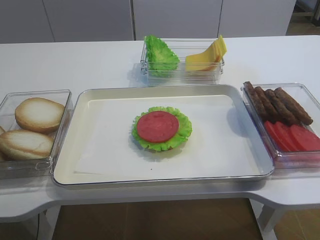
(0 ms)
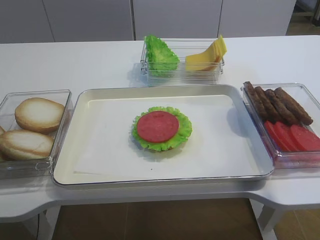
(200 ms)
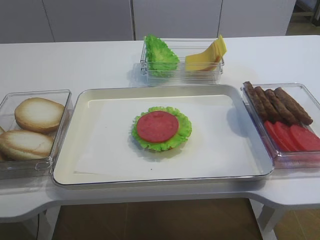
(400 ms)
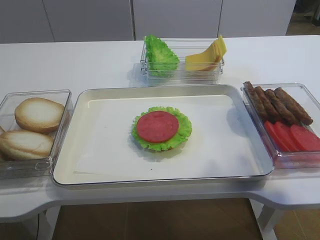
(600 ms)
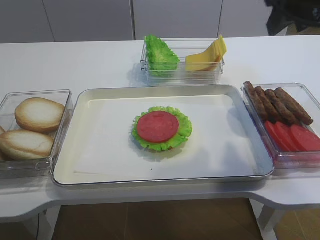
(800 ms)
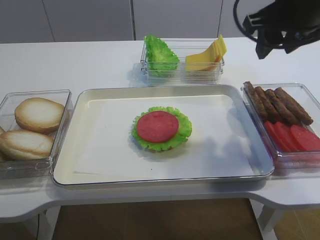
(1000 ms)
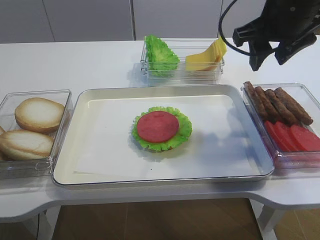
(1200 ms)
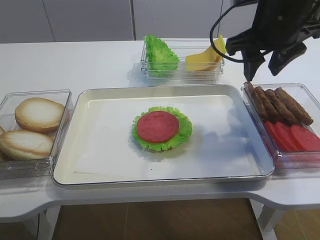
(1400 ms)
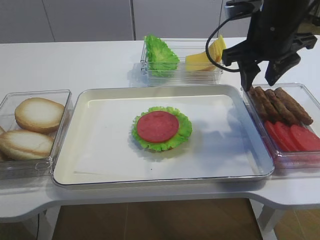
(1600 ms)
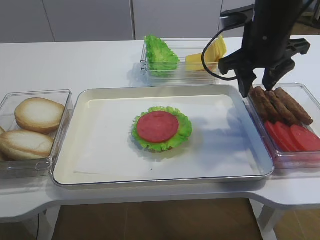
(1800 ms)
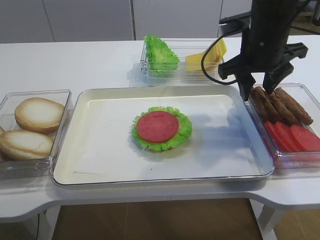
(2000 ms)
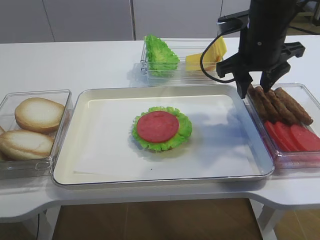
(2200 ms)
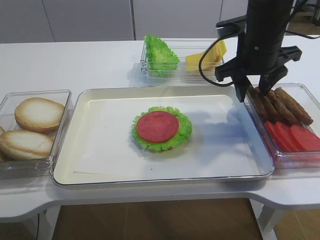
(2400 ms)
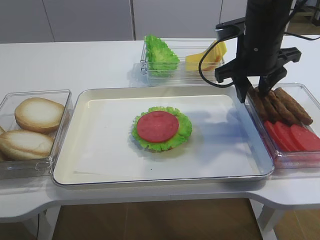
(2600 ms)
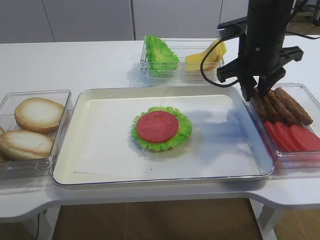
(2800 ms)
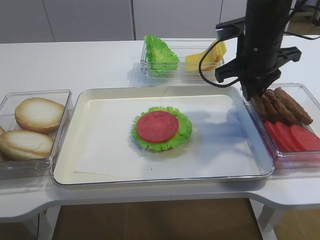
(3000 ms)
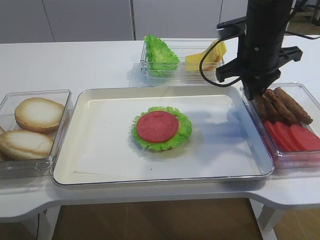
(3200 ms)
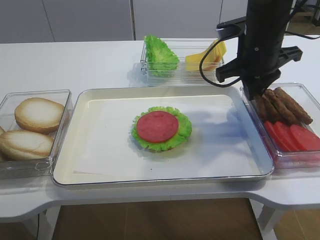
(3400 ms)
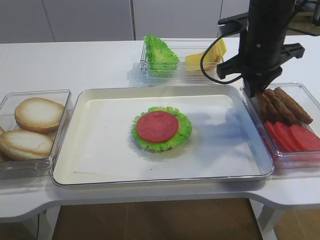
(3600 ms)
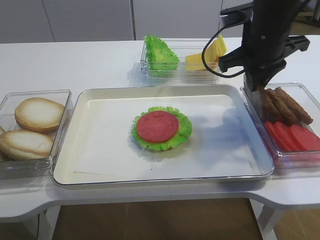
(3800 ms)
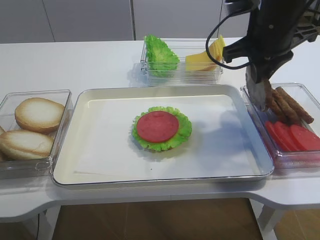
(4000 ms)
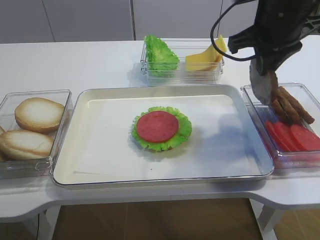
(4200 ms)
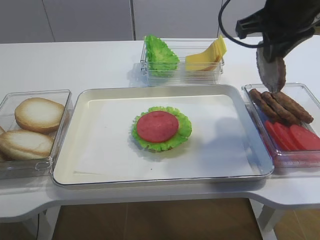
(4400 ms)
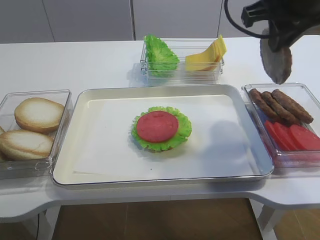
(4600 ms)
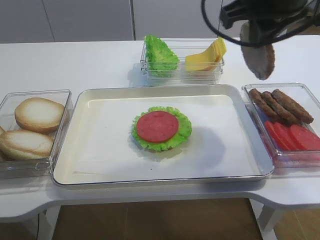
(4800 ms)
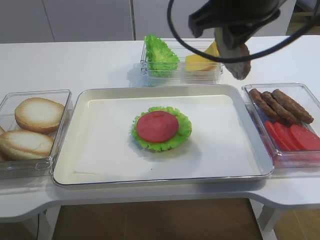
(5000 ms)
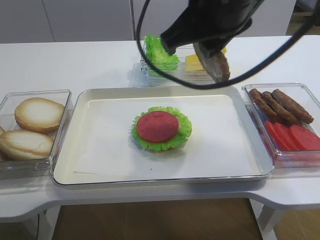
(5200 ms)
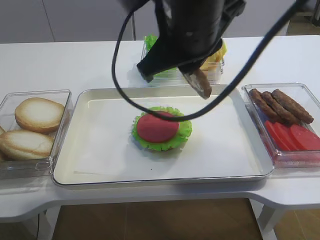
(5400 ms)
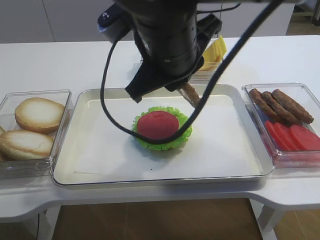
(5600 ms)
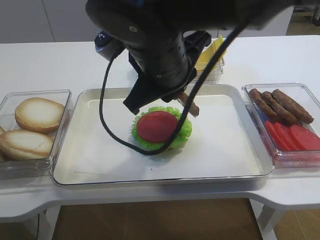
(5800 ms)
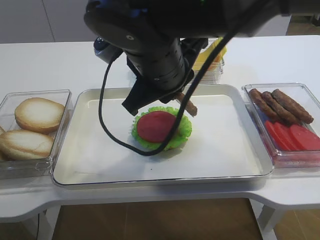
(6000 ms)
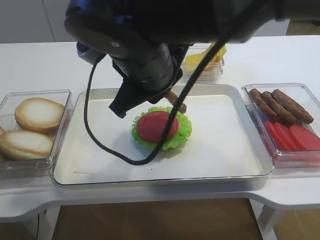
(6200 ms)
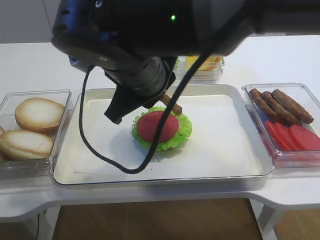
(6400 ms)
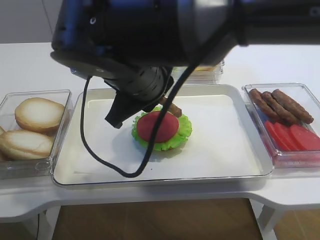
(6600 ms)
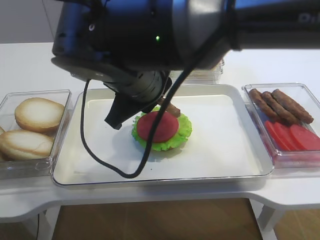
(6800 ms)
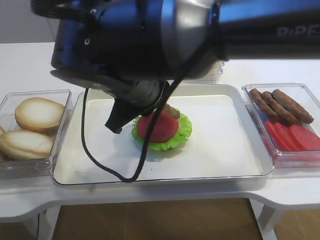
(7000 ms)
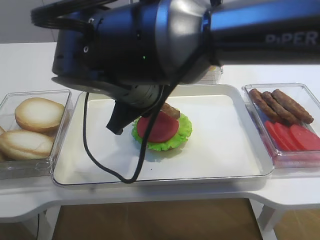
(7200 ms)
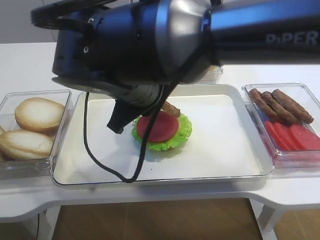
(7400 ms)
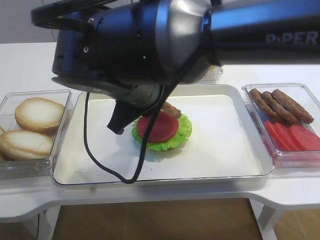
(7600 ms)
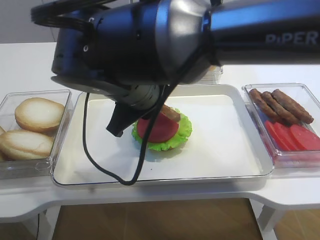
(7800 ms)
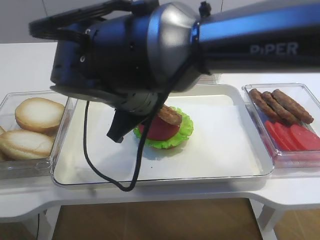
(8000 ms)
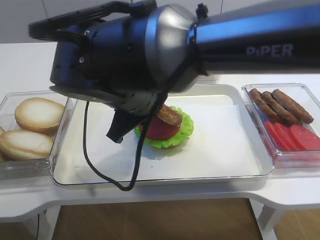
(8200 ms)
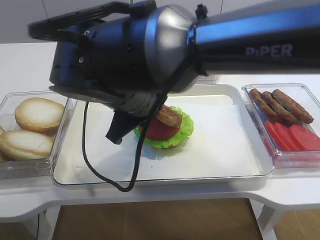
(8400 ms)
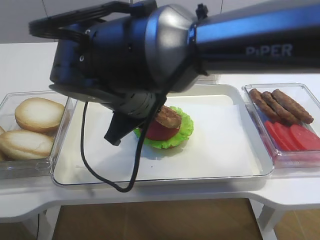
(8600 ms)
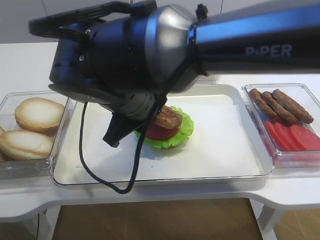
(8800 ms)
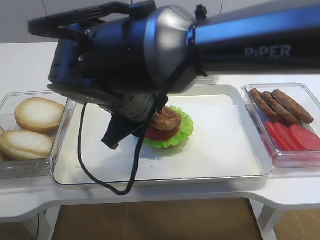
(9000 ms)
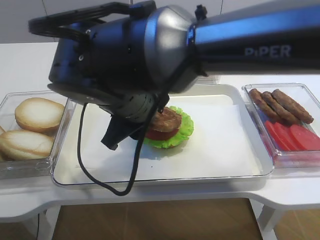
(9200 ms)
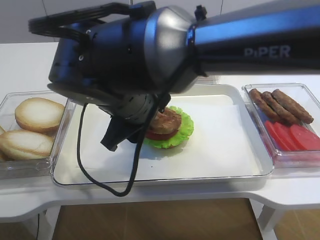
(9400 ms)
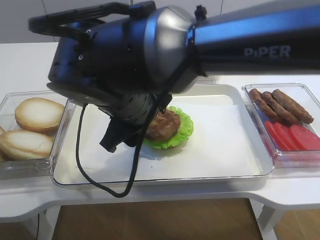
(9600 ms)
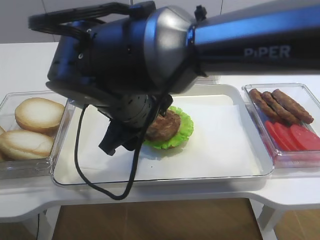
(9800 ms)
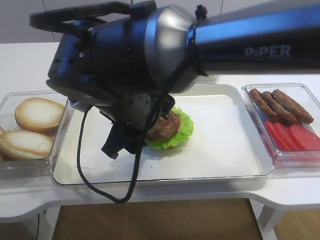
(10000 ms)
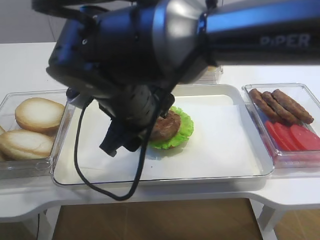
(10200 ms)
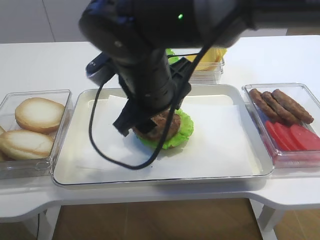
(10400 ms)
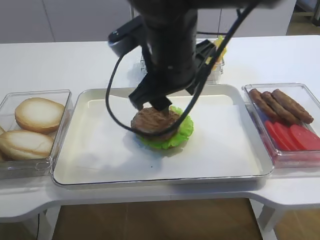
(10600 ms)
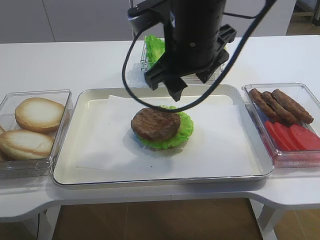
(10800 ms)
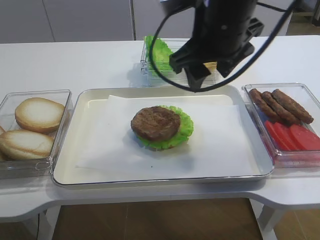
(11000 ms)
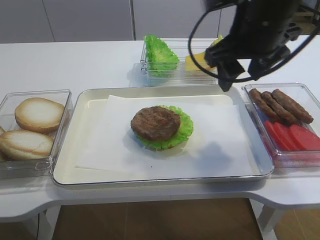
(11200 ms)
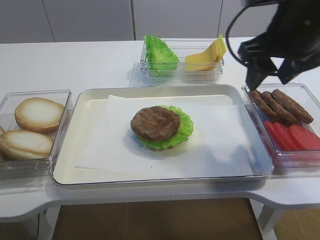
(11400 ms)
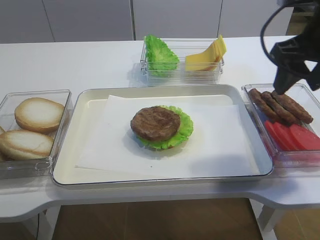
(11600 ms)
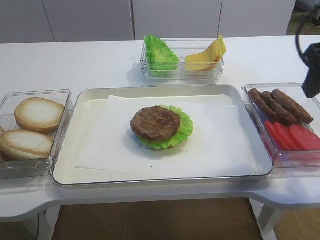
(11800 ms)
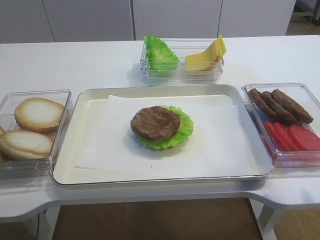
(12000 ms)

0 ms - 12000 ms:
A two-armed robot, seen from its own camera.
Step, 0 ms - 4400 ms: Pick up the cutlet with the right gripper.
Step, 4800 ms - 10600 ms: Place the cutlet on the tomato slice with the right gripper.
0 ms - 1600 ms: The right gripper heads forward, to the left and downward, covering about 20 cm.
1600 ms - 3000 ms: The right gripper closes its fingers.
3000 ms - 4400 ms: The right gripper travels upward by roughly 10 cm.
4400 ms - 6000 ms: The right gripper heads to the left, covering about 15 cm.
7600 ms - 9000 ms: The right gripper opens its fingers.
9000 ms - 10400 ms: The right gripper opens its fingers.
10400 ms - 12000 ms: The right gripper is displaced to the right by approximately 25 cm.

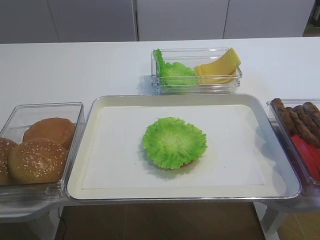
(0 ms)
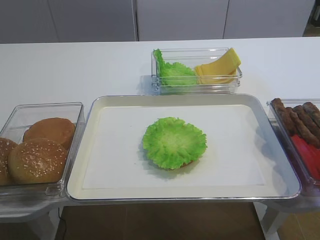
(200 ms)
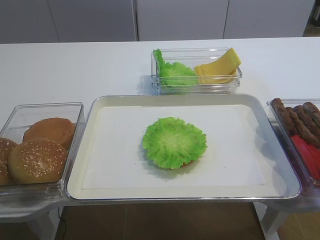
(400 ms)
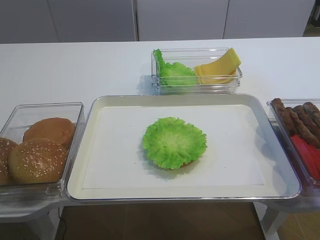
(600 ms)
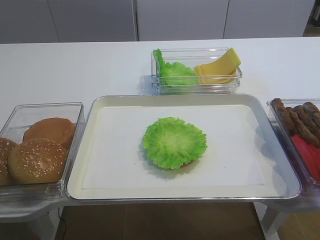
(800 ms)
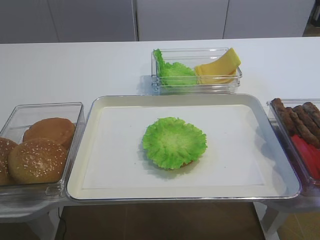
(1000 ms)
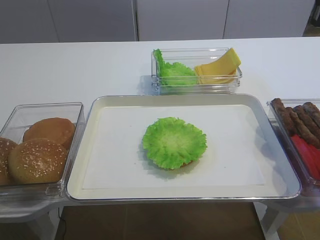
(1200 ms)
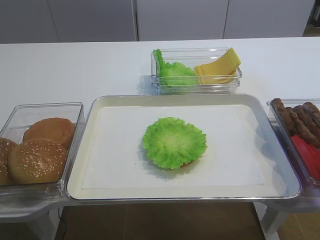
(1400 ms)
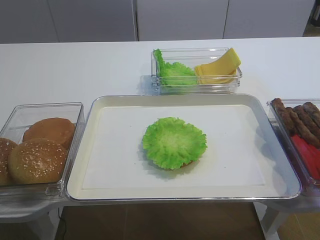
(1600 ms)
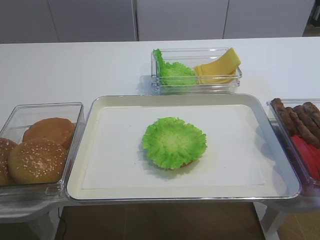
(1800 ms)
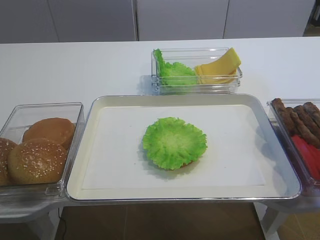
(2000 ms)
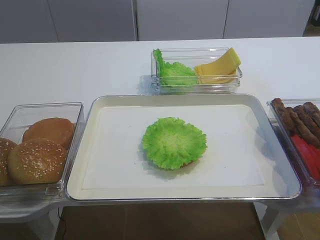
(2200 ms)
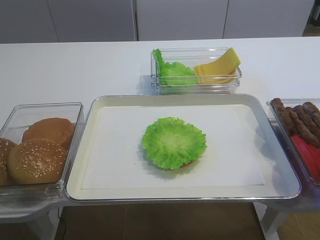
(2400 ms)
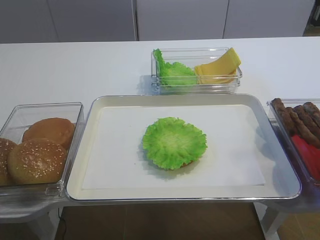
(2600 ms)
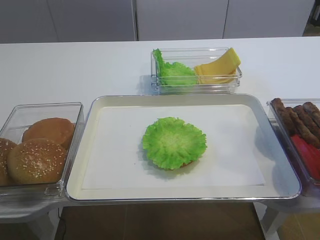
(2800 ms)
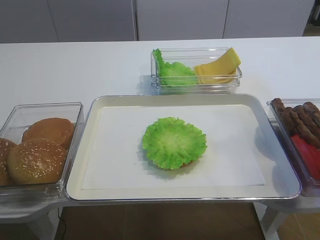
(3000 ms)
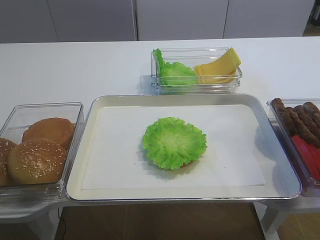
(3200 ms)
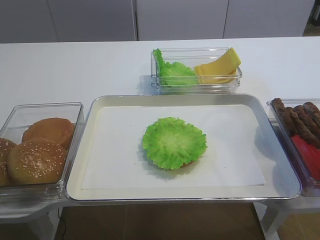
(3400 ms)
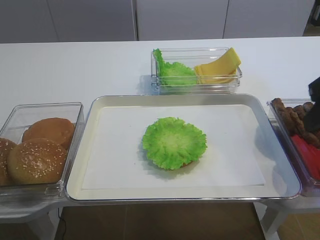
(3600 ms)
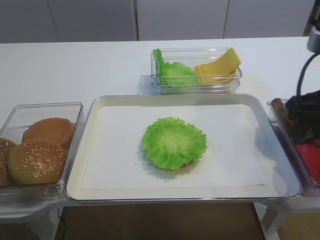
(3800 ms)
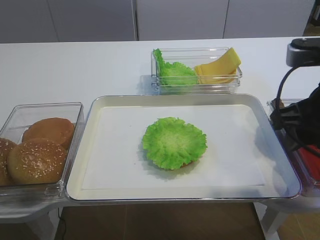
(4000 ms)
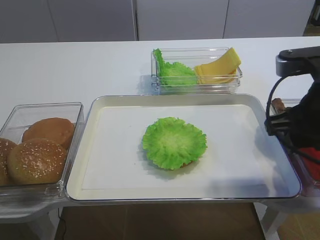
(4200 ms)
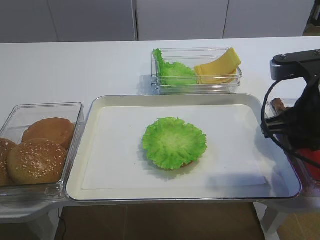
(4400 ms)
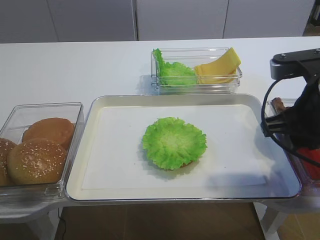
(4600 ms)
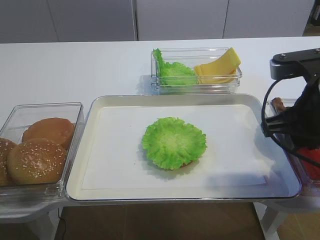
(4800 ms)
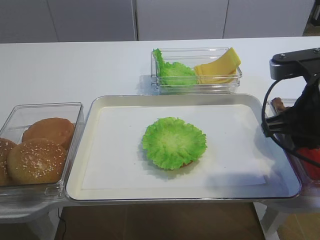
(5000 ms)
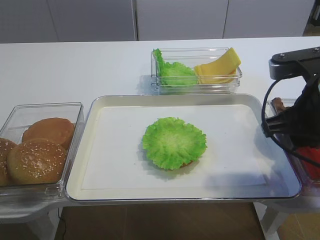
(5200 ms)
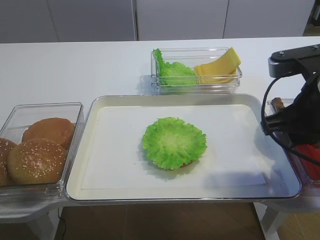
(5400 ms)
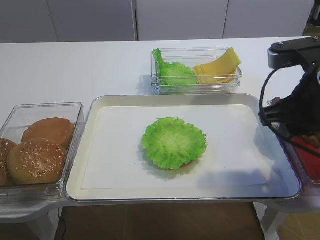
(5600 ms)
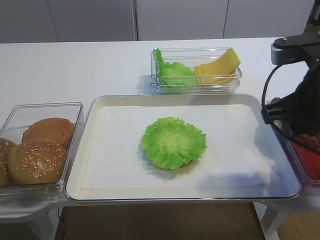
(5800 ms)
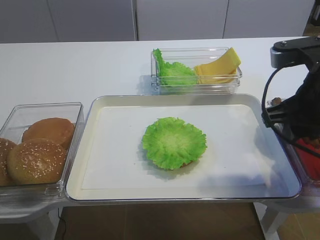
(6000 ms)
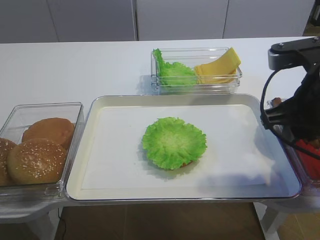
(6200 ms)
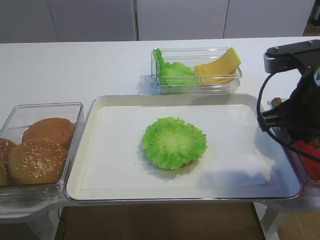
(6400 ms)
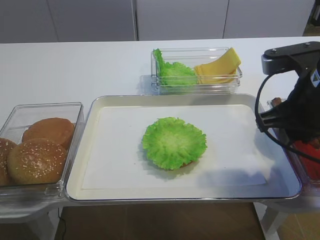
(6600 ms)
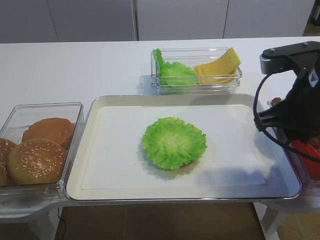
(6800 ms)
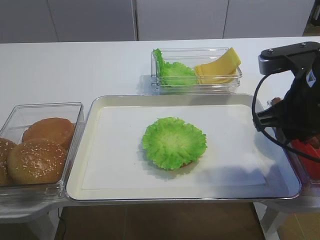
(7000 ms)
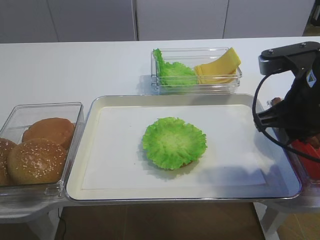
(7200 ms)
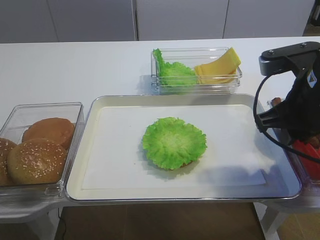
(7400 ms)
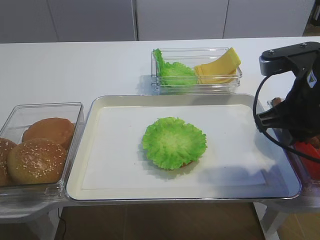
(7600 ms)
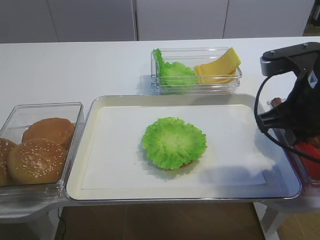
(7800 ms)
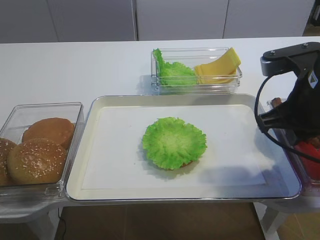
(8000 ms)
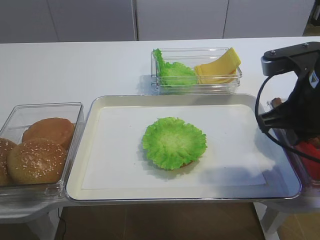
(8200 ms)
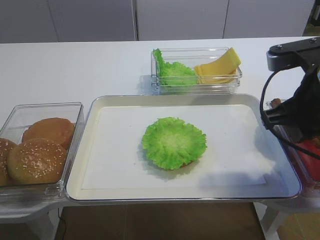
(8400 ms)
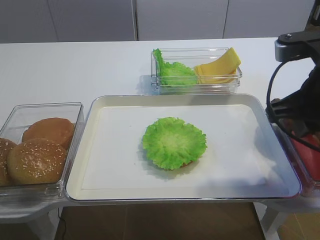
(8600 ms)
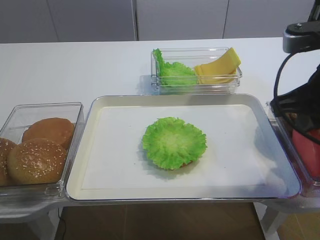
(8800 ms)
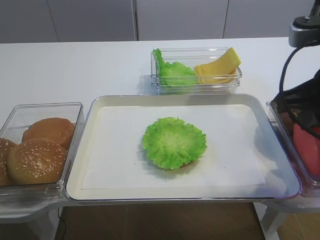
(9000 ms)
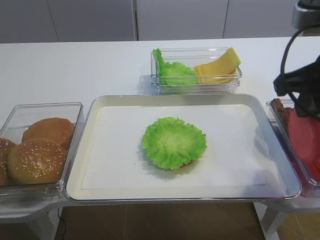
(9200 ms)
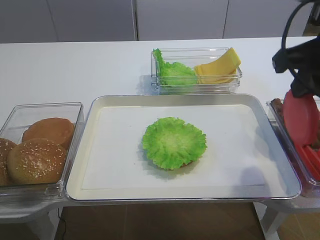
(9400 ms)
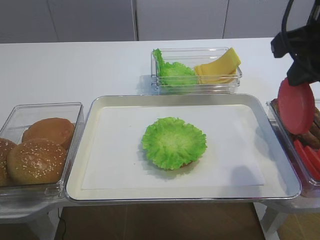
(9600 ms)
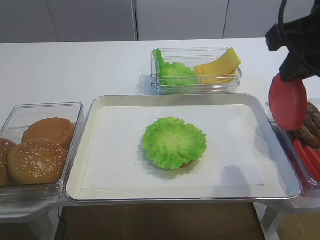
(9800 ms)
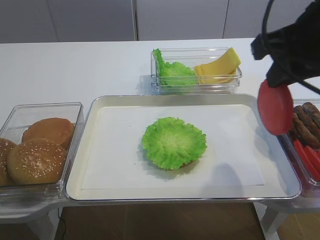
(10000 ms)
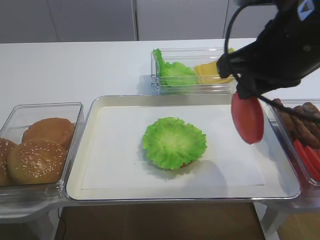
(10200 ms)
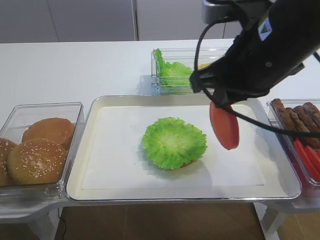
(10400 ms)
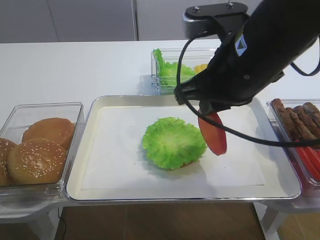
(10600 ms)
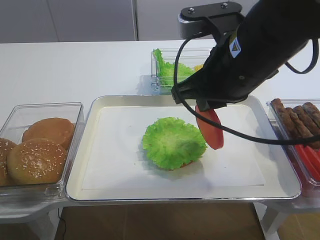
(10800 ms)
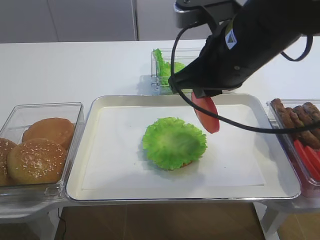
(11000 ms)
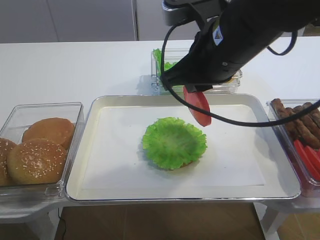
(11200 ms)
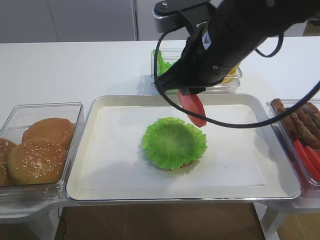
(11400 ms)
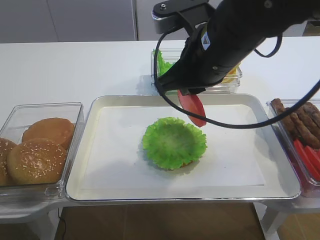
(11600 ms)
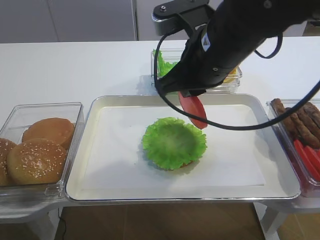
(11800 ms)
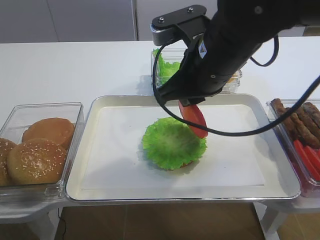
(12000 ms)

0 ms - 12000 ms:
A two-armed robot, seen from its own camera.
Step, 0 ms - 9000 ms: Pick up the tomato slice with the right gripper.
3000 ms - 4400 ms: The right gripper heads forward, downward and to the left, covering some 15 cm.
4400 ms - 6000 ms: The grippers stay close to where they were, moving slightly.
6000 ms - 7600 ms: The right gripper closes.
7600 ms - 9000 ms: The right gripper ends up some 5 cm from where it was.
9000 ms - 10400 ms: The right gripper moves to the left, about 10 cm.
10400 ms - 12000 ms: The right gripper ends up roughly 5 cm from where it was.
